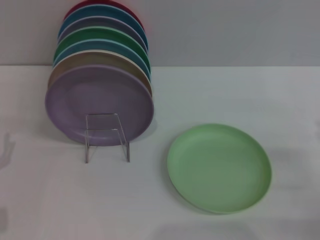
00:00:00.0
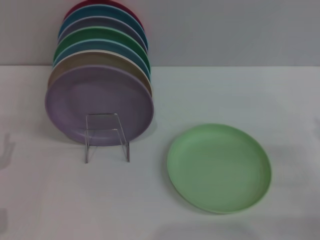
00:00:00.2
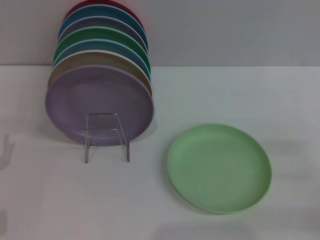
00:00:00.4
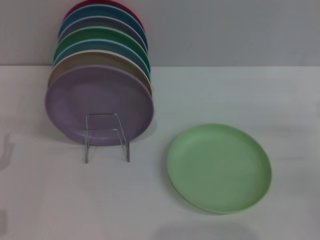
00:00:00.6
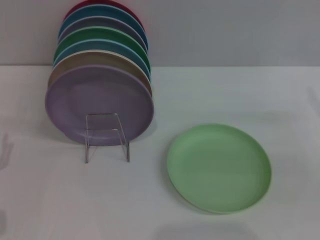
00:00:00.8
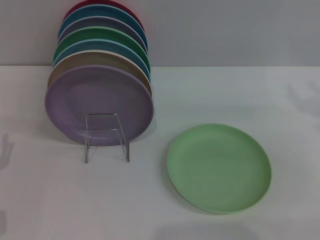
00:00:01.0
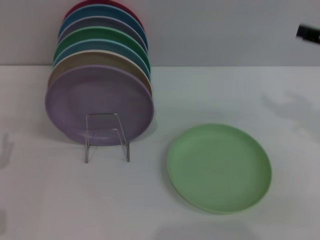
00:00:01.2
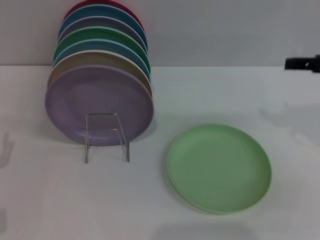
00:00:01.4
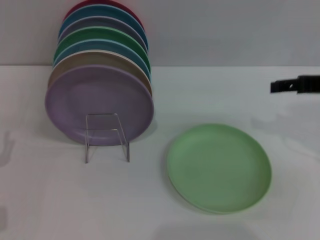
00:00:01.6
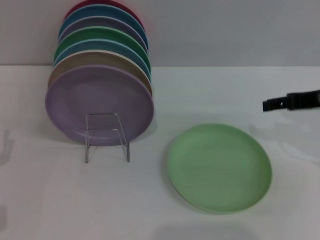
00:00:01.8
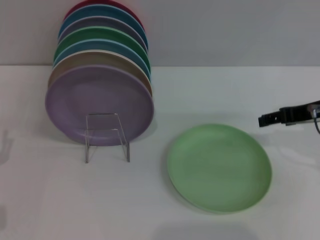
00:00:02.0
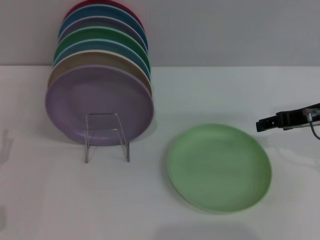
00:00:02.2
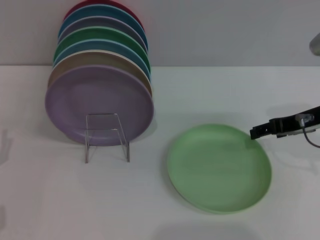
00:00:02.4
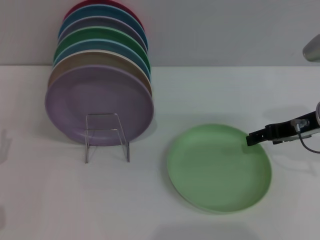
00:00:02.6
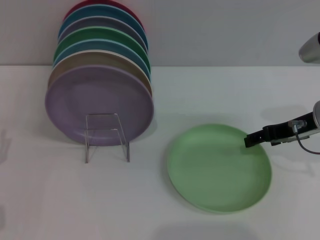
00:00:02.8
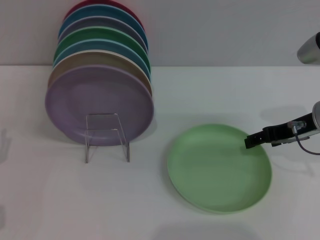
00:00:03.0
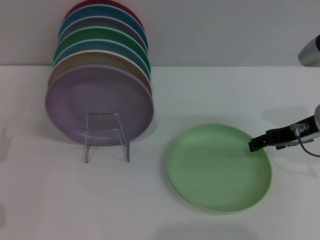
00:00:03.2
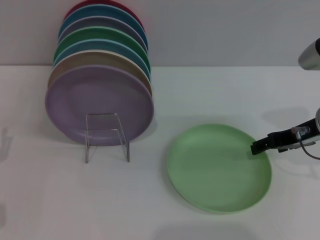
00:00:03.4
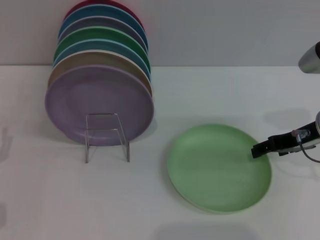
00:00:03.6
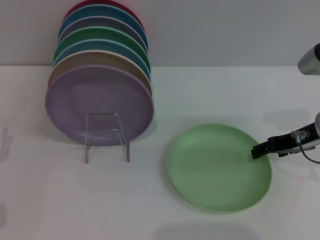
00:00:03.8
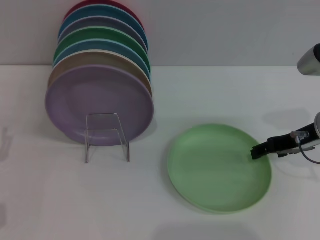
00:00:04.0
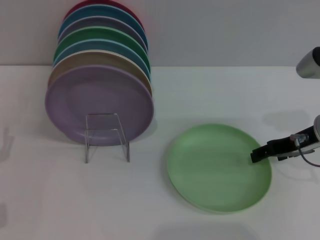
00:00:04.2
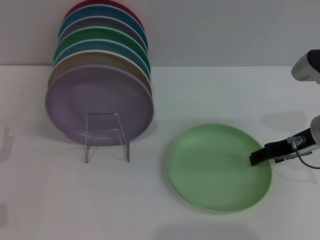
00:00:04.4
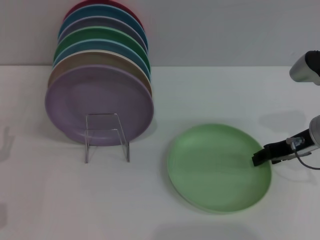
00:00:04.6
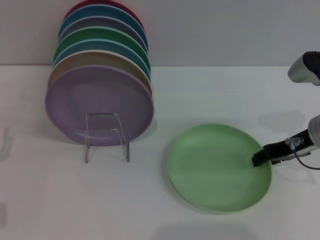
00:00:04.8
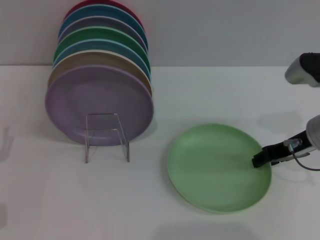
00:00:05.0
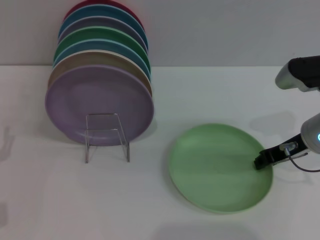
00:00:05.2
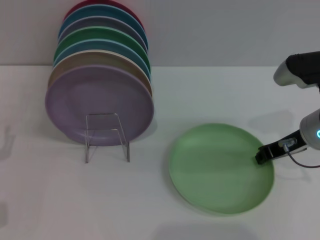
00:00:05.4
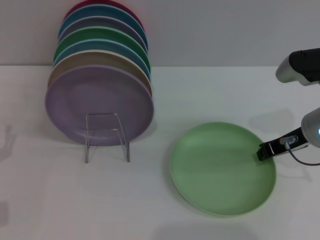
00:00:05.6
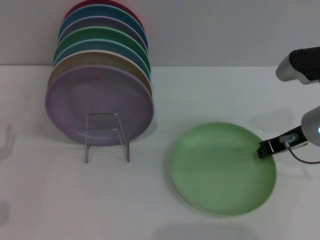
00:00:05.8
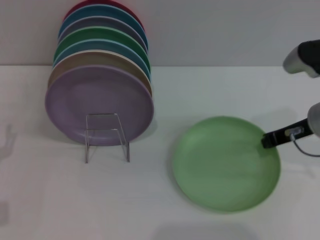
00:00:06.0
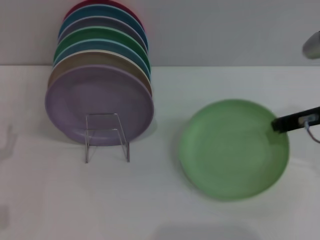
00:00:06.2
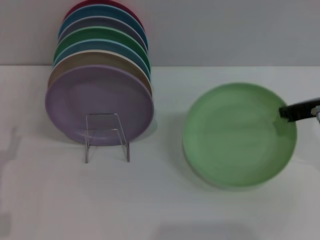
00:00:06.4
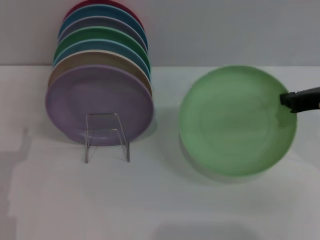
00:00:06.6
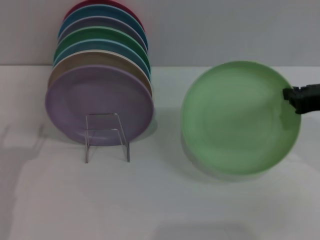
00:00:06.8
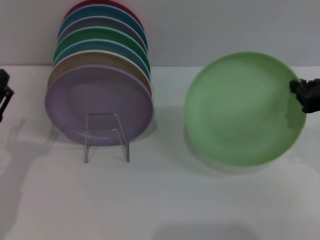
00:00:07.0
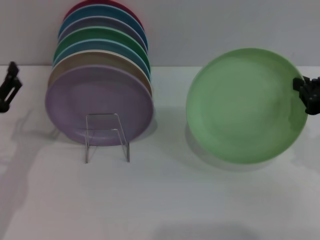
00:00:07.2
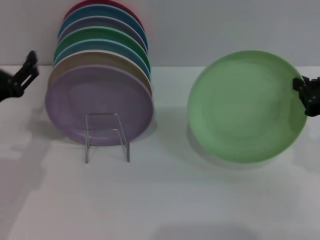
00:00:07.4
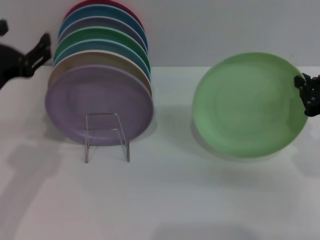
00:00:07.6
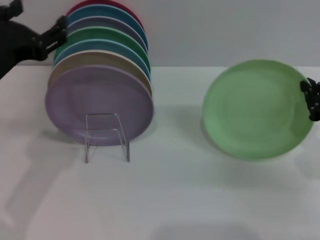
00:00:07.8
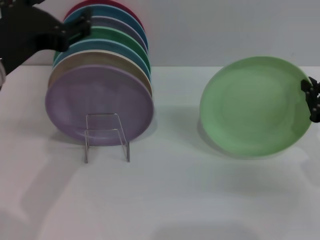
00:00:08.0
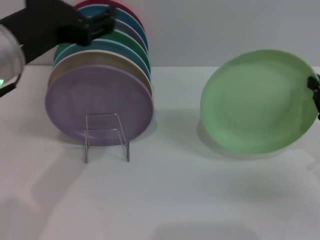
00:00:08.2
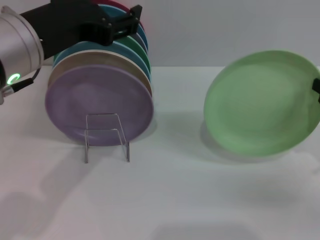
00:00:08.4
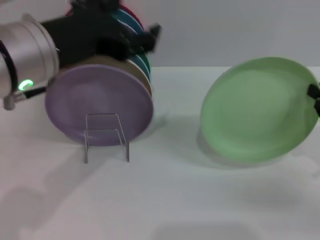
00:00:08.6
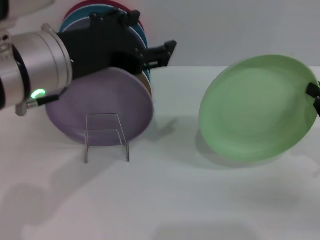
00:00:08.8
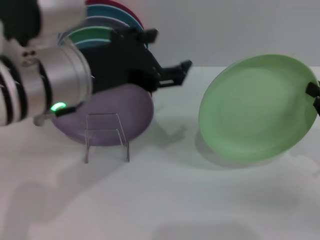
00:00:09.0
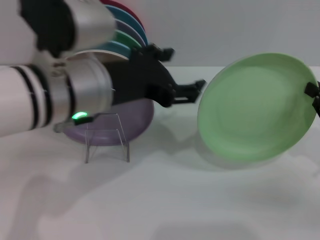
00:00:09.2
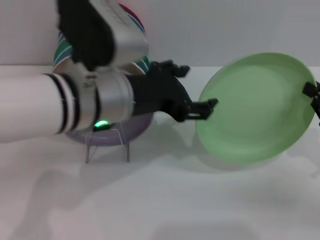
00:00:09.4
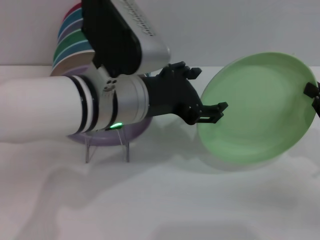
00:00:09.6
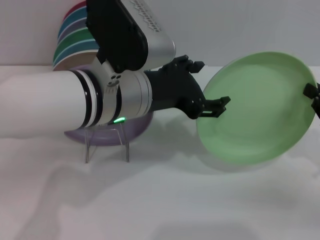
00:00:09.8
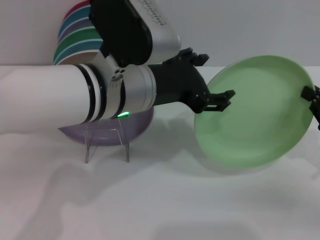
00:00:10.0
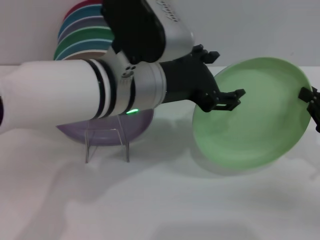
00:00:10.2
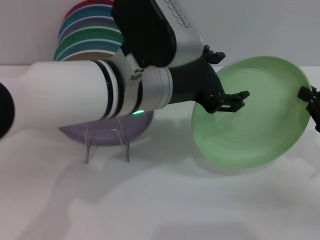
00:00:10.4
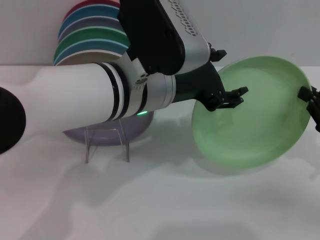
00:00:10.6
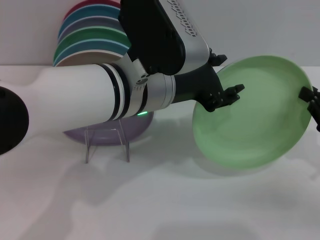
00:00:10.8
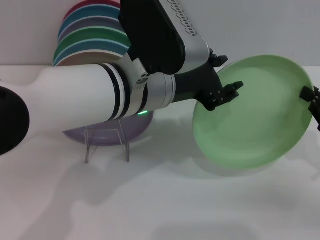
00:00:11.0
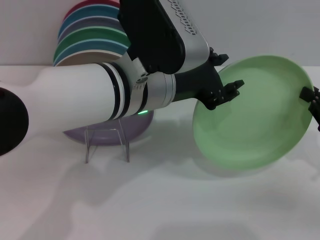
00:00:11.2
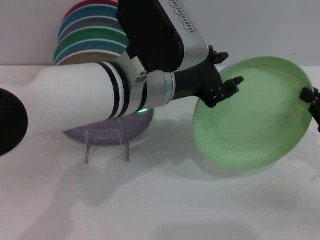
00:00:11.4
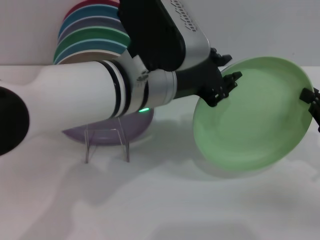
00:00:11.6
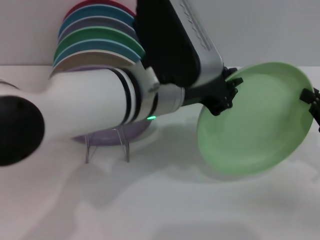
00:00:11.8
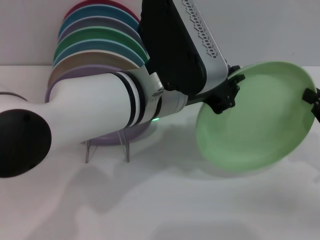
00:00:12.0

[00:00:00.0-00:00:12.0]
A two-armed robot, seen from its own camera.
Task of the whole recording: Grip the plate with one hand, pass it to the other, then set it on the shelf.
Step, 00:00:00.0 to 00:00:06.4: Pick up the plate with the right gripper.
00:00:00.0 to 00:00:01.6: The right gripper shifts roughly 20 cm upward and forward.
00:00:01.6 to 00:00:03.0: The right gripper shifts about 5 cm downward.
00:00:03.0 to 00:00:04.4: The grippers make only small movements.
00:00:04.4 to 00:00:06.0: The right gripper closes up.
00:00:06.0 to 00:00:07.6: The left gripper heads upward and to the right, covering roughly 15 cm. Meanwhile the right gripper heads backward and to the right, covering about 10 cm.
00:00:07.6 to 00:00:09.0: The left gripper is displaced to the right and upward by roughly 15 cm; the right gripper moves some 5 cm.
00:00:09.0 to 00:00:10.4: The left gripper travels to the right by about 10 cm.
00:00:10.4 to 00:00:12.0: The left gripper closes.

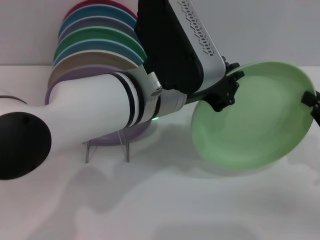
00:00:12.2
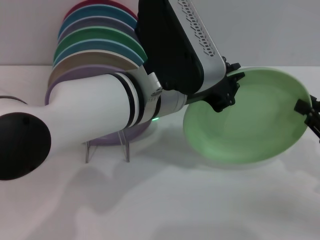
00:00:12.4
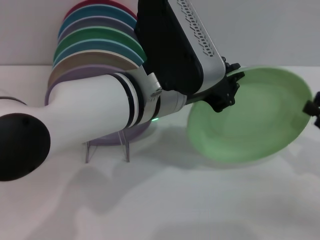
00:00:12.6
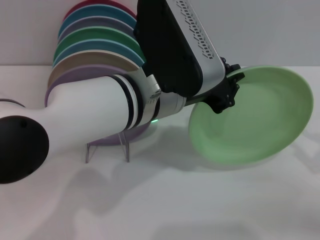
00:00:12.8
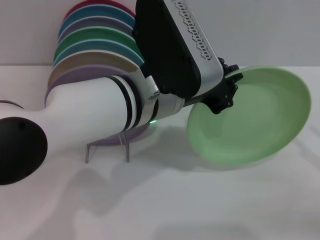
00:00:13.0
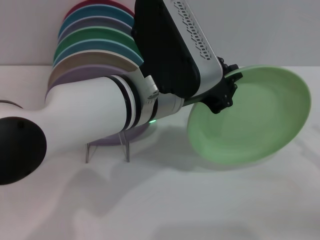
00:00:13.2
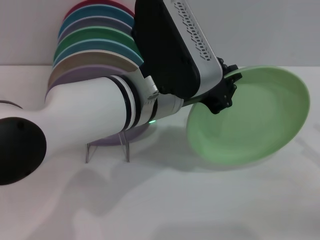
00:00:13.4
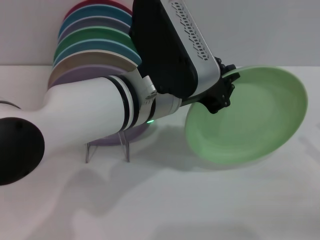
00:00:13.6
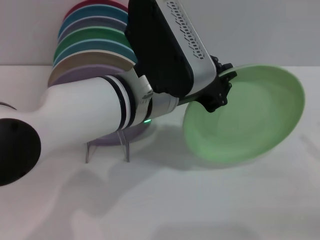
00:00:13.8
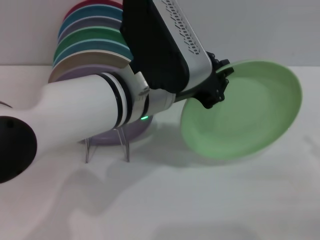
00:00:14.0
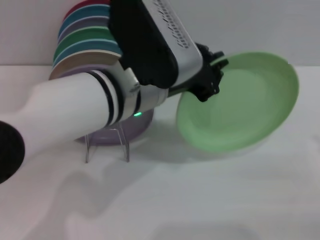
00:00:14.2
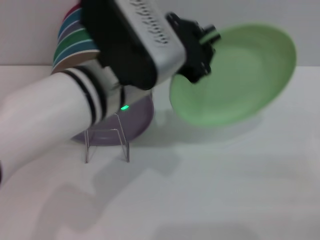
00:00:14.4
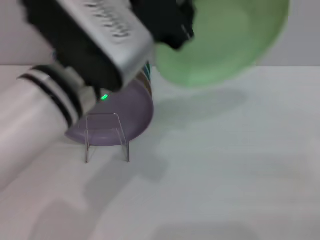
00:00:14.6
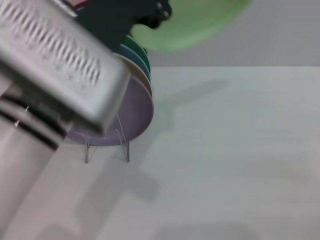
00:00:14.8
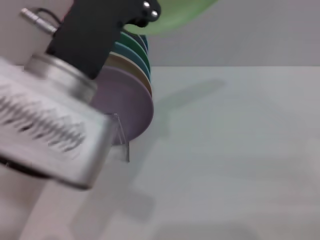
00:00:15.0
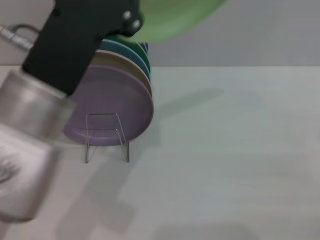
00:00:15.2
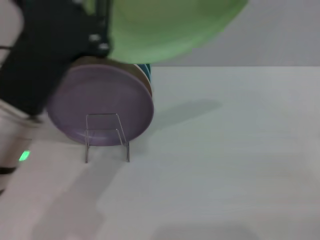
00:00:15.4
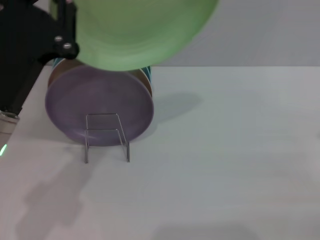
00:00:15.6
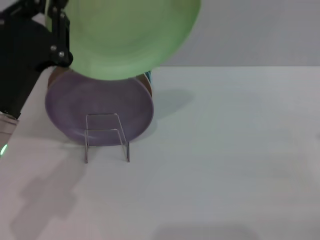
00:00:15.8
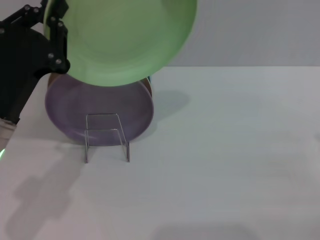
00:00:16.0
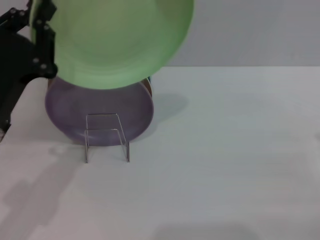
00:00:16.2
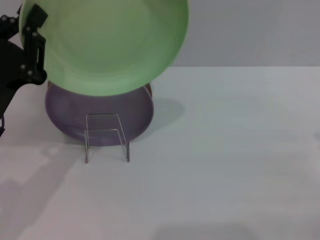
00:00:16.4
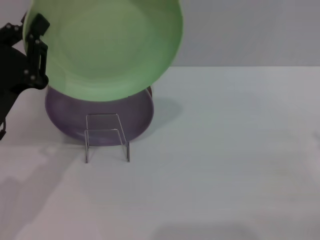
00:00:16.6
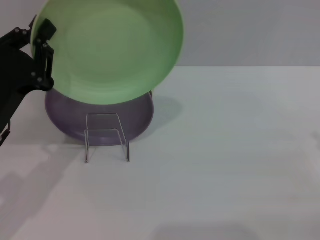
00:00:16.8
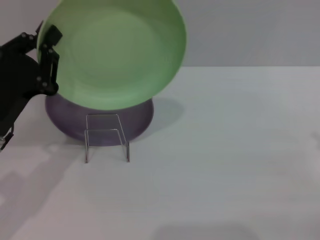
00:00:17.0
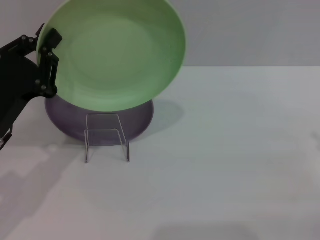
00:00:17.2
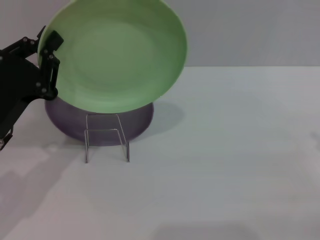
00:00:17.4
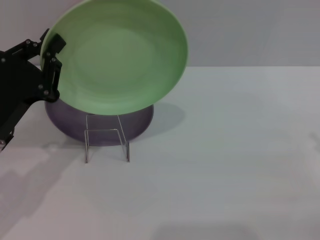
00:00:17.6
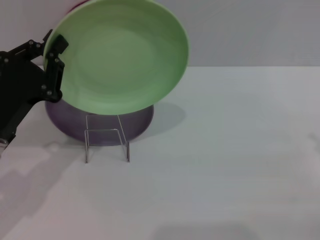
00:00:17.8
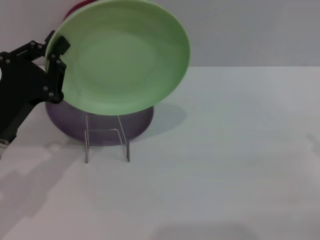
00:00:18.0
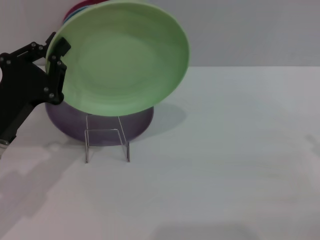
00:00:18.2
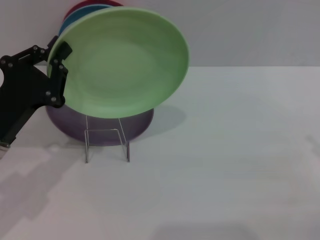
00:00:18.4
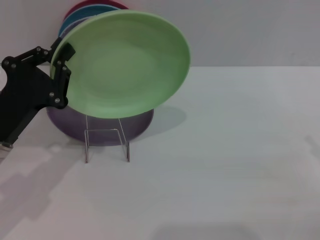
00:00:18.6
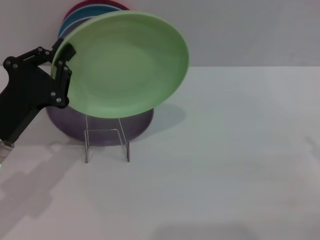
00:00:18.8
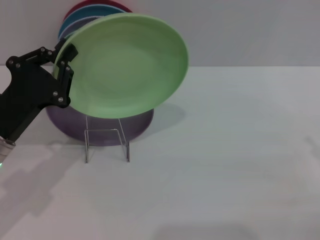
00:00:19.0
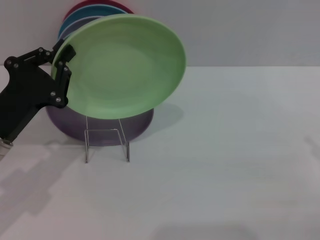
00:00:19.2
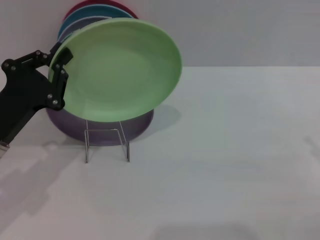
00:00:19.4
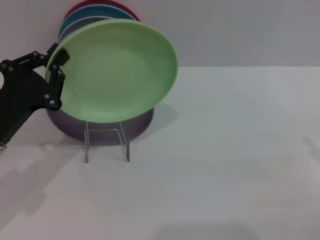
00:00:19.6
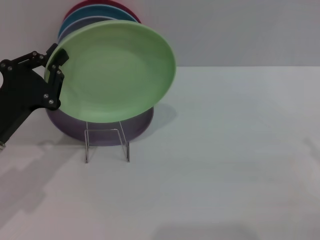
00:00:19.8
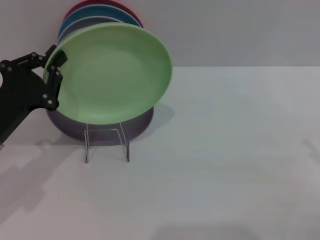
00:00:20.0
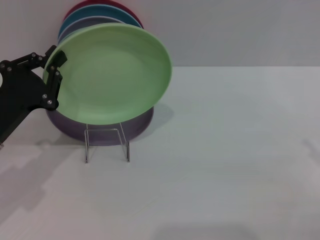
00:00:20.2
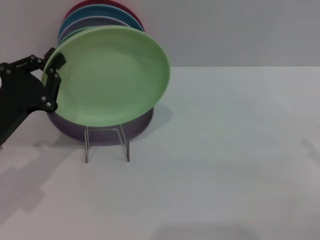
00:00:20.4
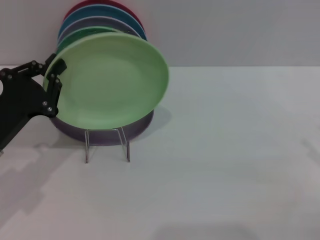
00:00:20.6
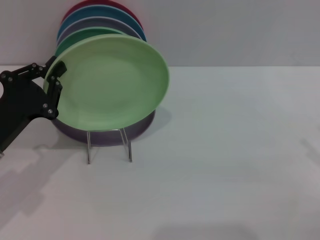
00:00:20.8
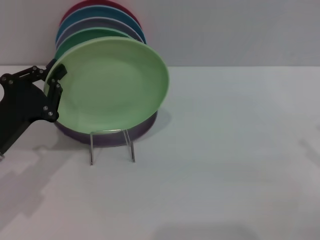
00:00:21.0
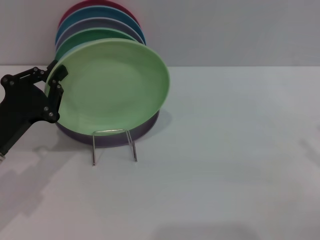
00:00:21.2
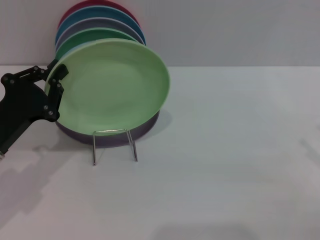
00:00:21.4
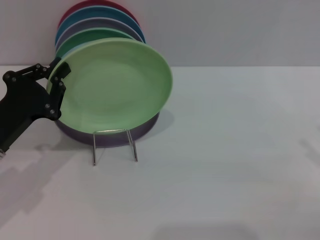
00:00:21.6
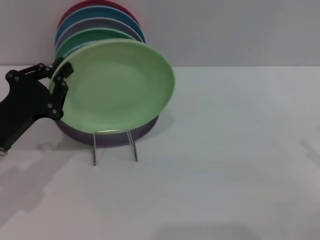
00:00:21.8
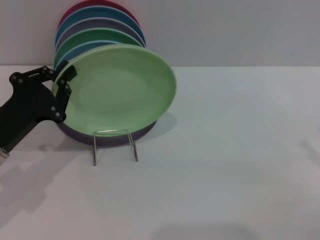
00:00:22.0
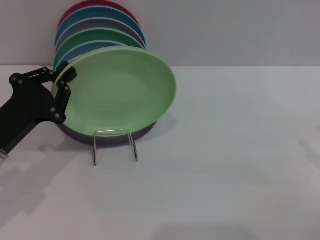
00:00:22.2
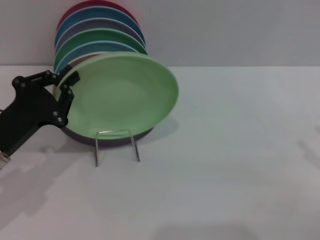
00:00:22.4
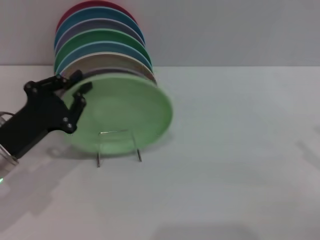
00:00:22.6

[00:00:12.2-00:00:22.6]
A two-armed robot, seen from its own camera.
Task of the whole recording: Grip the plate with one hand, pass it to the other, then set it on the shelf.
00:00:12.2 to 00:00:13.6: The right gripper shifts by roughly 5 cm, and opens up.
00:00:13.6 to 00:00:15.2: The left gripper moves to the left and backward, roughly 10 cm.
00:00:15.2 to 00:00:16.6: The left gripper is displaced to the left and downward by roughly 15 cm.
00:00:16.6 to 00:00:21.2: The grippers stay close to where they were, moving slightly.
00:00:21.2 to 00:00:22.6: The grippers move only a little.
